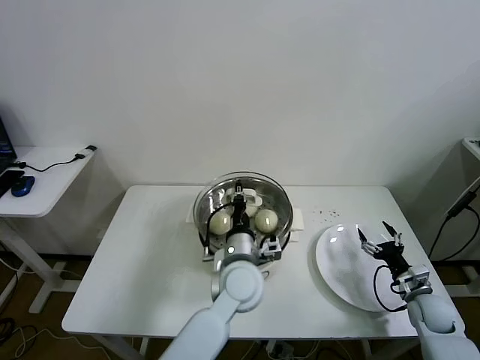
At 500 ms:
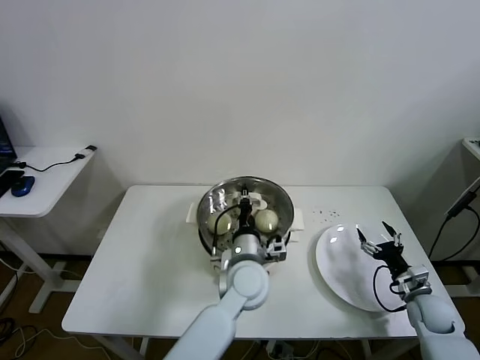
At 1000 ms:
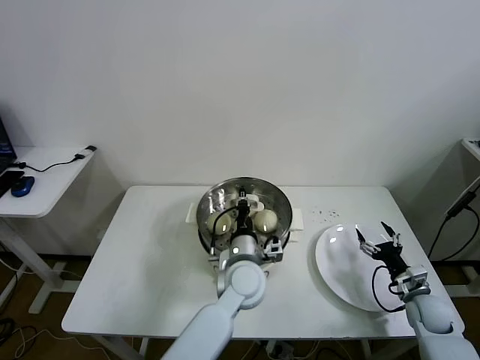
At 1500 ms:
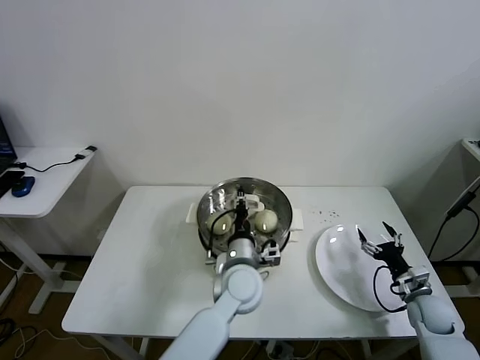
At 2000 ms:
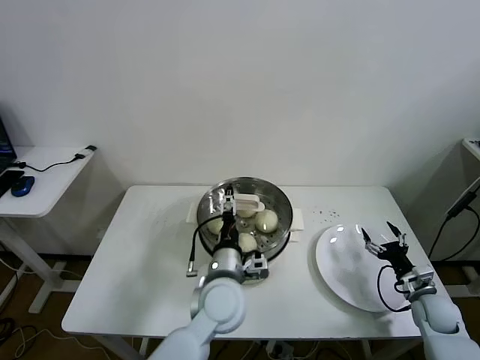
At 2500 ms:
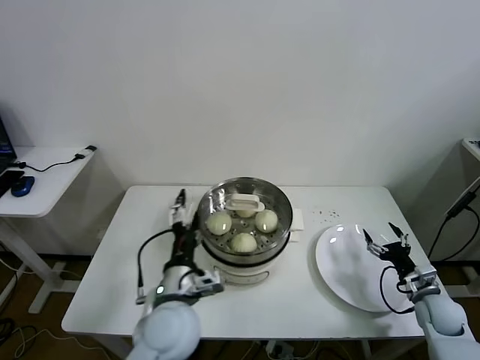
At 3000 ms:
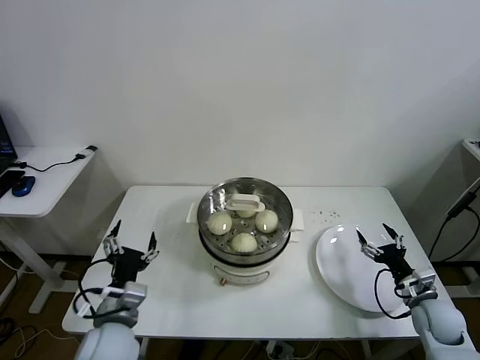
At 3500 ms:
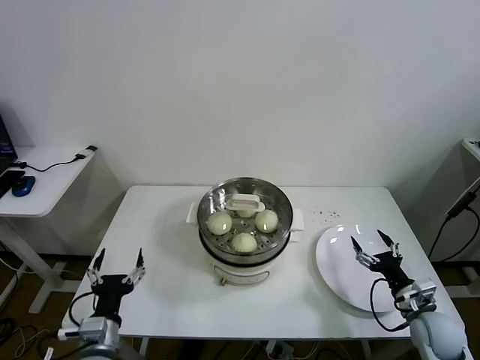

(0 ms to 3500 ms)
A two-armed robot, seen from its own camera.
Task of the whole recording: take steamed baozi put them in steamer then cover it.
0 ms - 2000 ms: The left gripper opens.
2000 ms - 3500 ms: The left gripper goes some 25 cm to the left and backward. Meanwhile the right gripper changes place by some 10 cm.
